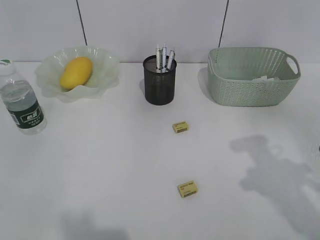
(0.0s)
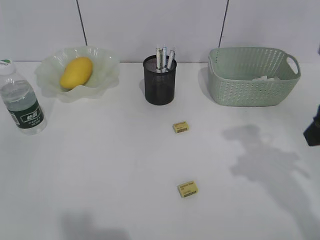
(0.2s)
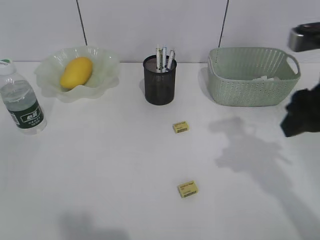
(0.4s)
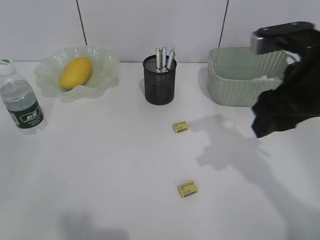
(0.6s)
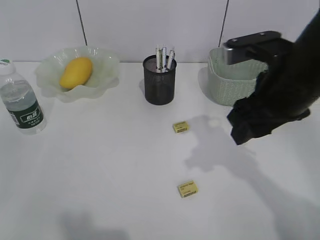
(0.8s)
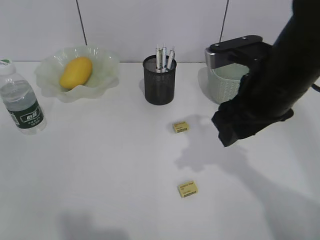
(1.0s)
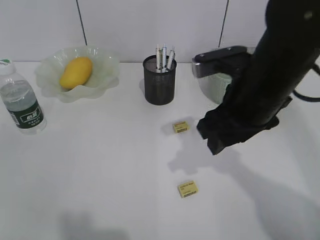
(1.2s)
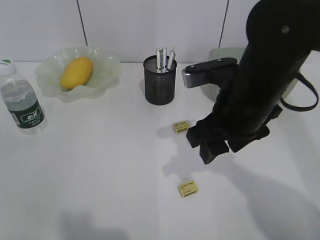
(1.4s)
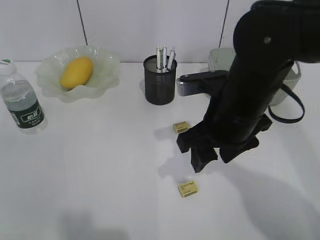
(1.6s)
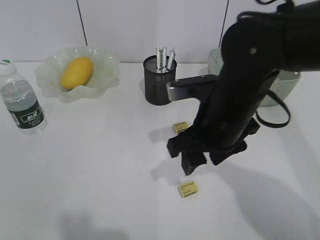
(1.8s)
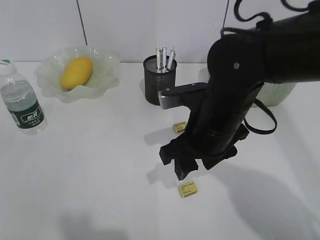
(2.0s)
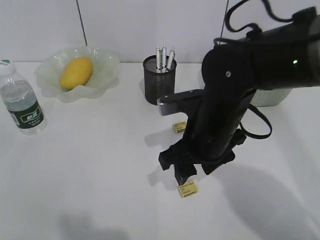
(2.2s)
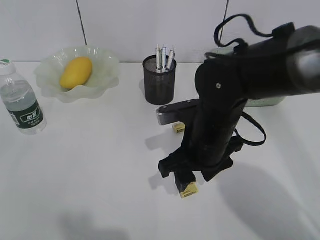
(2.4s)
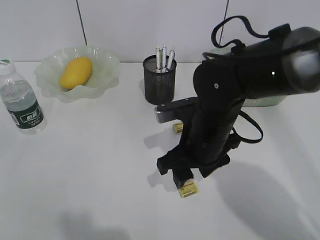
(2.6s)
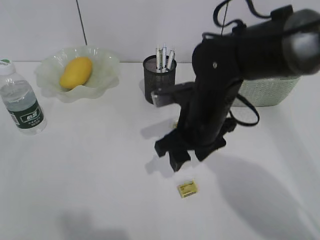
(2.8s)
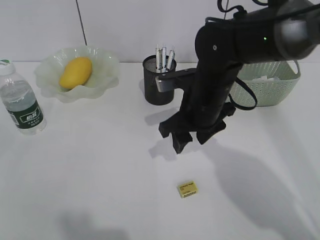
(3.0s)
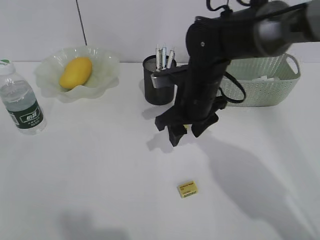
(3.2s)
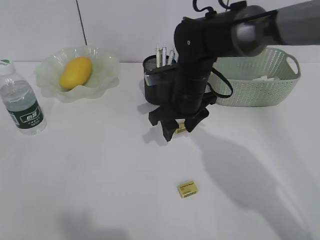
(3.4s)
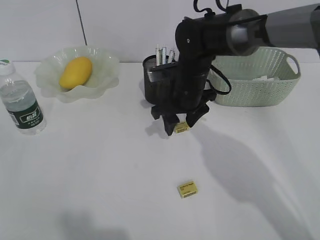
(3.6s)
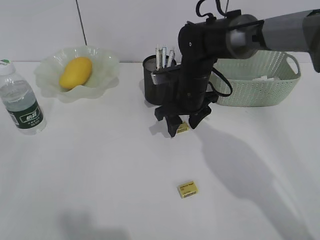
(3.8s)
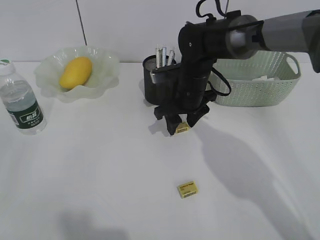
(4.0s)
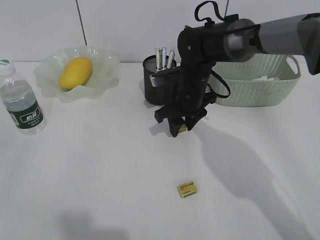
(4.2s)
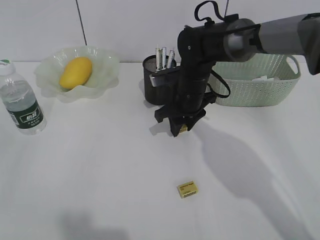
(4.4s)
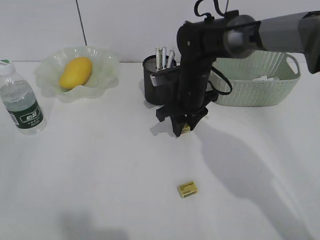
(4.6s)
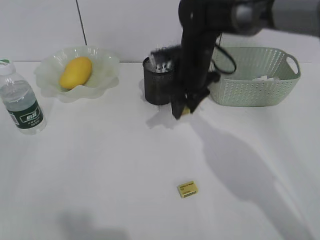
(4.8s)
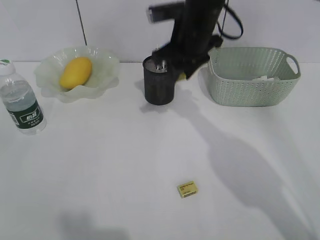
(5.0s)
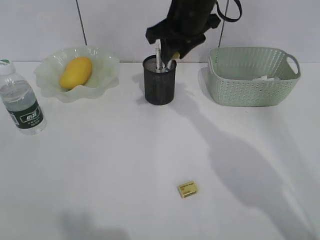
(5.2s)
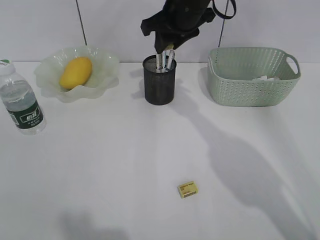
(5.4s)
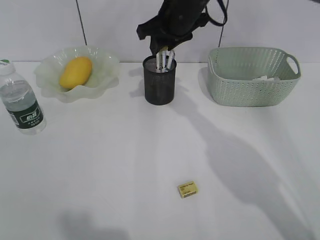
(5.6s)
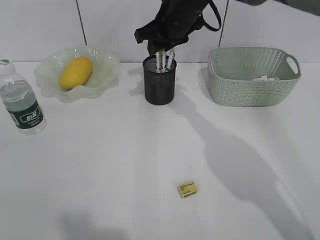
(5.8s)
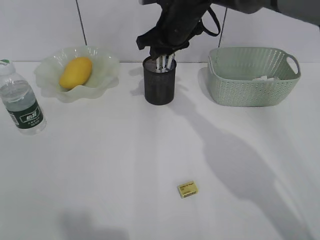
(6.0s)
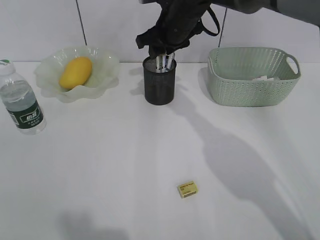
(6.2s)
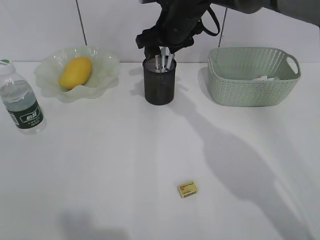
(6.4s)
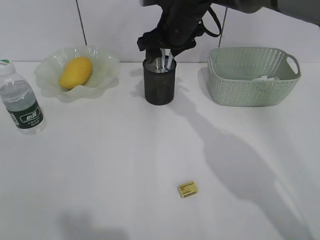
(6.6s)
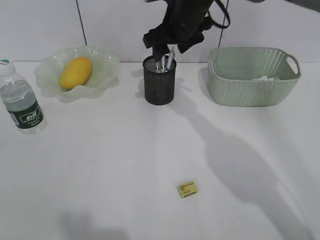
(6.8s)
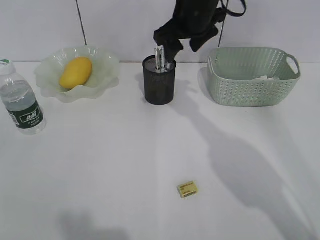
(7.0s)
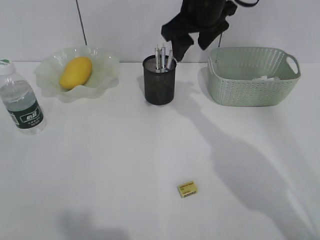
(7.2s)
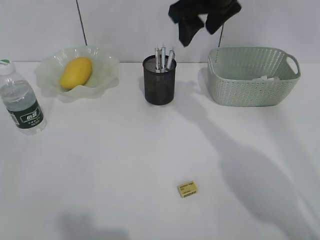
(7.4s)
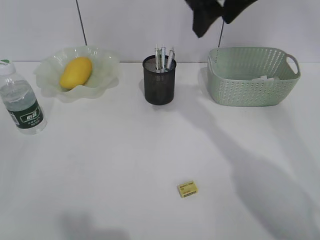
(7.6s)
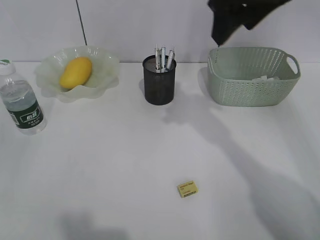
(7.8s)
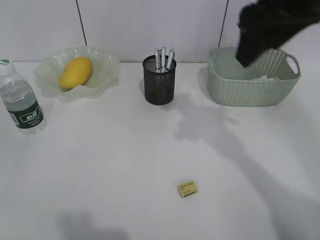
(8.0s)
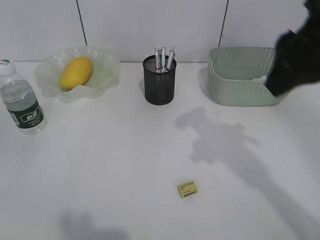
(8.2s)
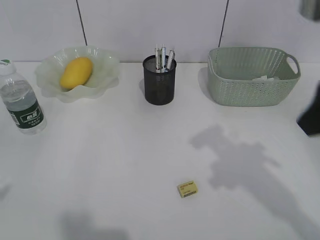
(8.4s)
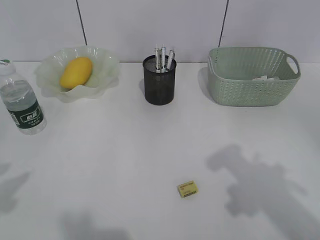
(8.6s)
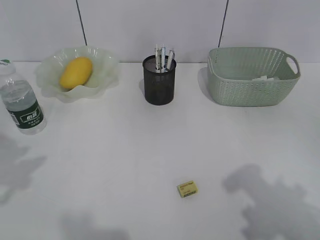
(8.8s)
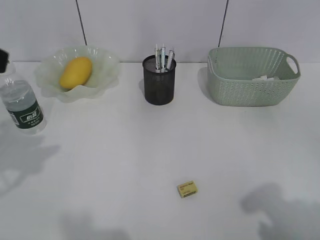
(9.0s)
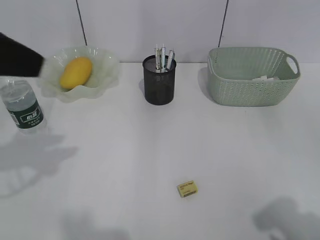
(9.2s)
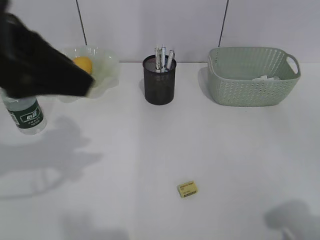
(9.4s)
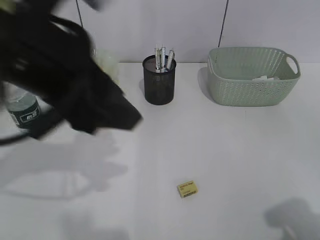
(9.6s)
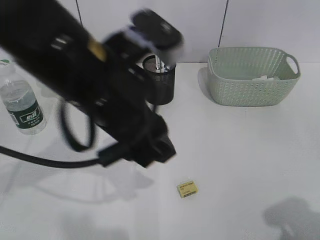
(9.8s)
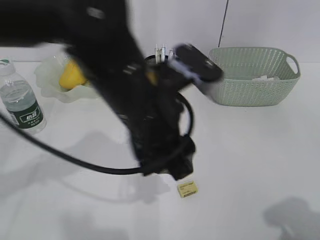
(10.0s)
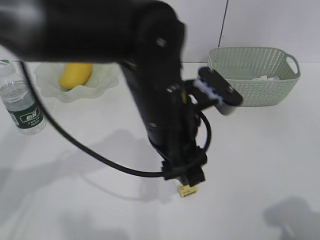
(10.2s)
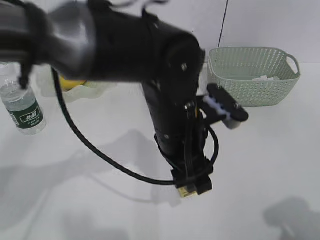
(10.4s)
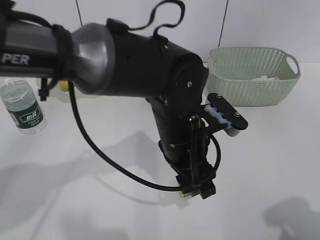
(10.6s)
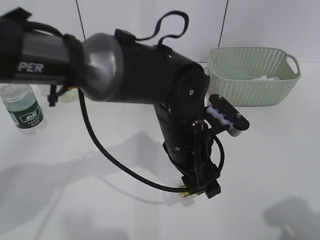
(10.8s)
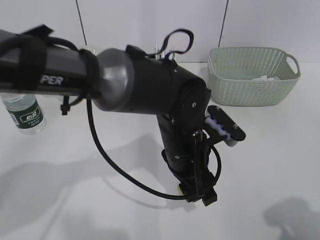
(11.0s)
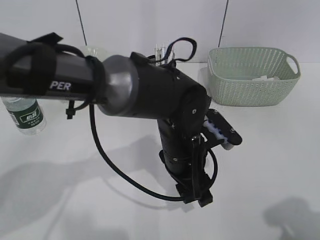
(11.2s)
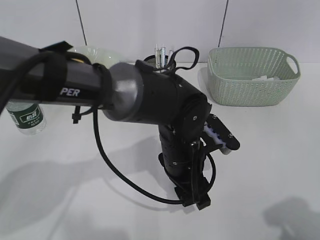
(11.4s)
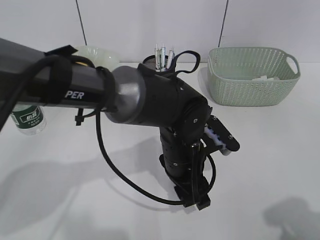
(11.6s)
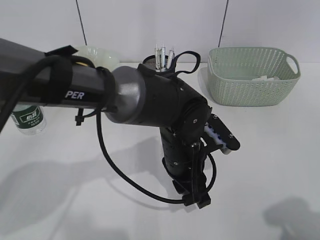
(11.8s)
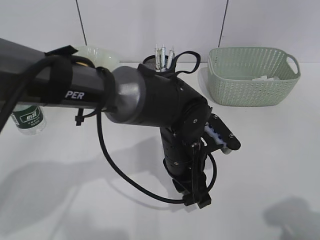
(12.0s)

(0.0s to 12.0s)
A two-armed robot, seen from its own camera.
Step, 0.0s - 4.4s: Grasp the eraser with right gripper.
Step, 4.6s - 6.4s: Place the eraser in pen holder with right gripper.
0.0s - 1.6s: The right gripper is displaced to the left, forward and downward by about 20 cm. Meanwhile the left gripper is displaced backward by roughly 5 cm.
1.6s - 3.0s: The right gripper travels forward by approximately 5 cm.
3.0s - 4.4s: The right gripper heads forward and downward, covering approximately 10 cm.
4.4s - 6.0s: The right gripper heads upward and forward, covering roughly 15 cm.
6.0s - 7.6s: The right gripper is displaced upward, backward and to the right by approximately 15 cm, and opens its fingers.
7.6s - 9.0s: The left gripper travels forward by some 15 cm, while the right gripper travels backward and to the right by roughly 35 cm.
9.0s - 10.4s: The left gripper shifts approximately 30 cm to the right and downward.
10.4s - 12.0s: The left gripper is displaced downward by roughly 10 cm, and closes its fingers.

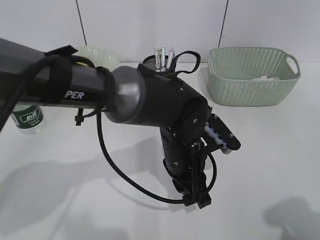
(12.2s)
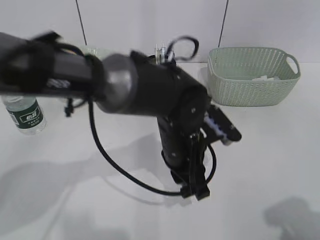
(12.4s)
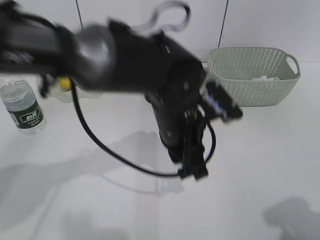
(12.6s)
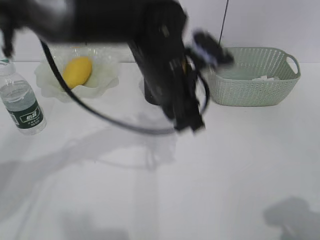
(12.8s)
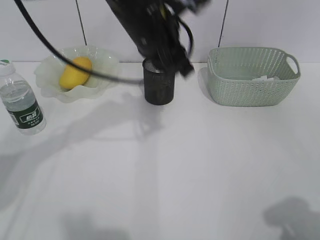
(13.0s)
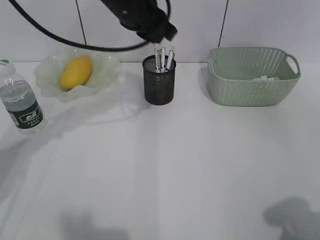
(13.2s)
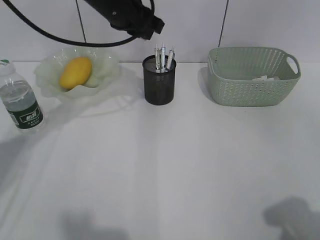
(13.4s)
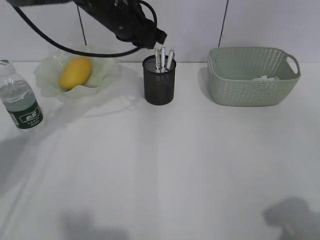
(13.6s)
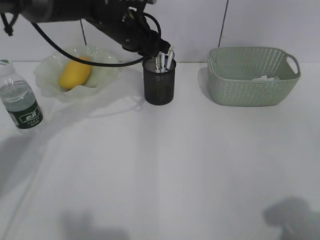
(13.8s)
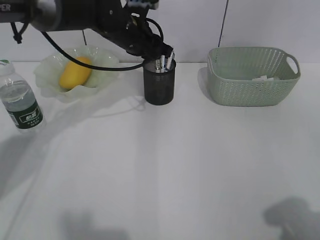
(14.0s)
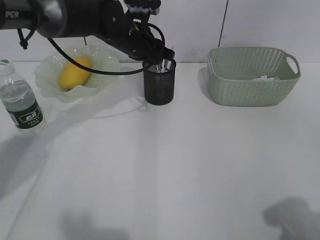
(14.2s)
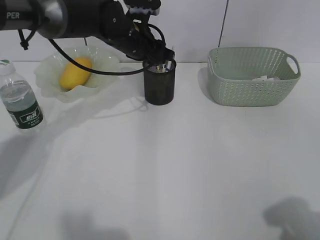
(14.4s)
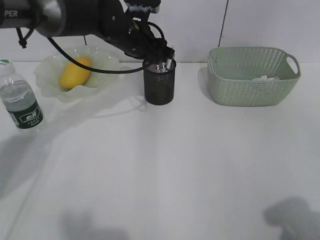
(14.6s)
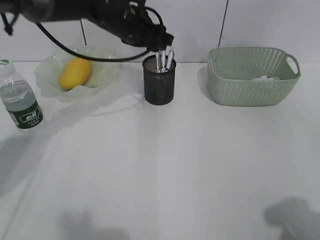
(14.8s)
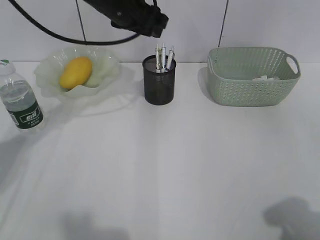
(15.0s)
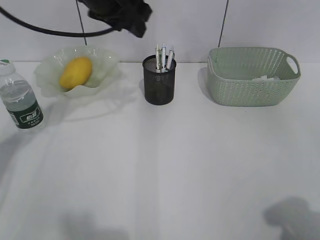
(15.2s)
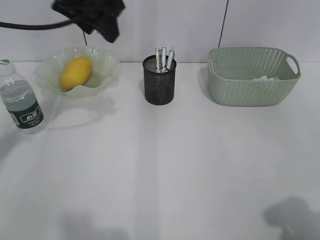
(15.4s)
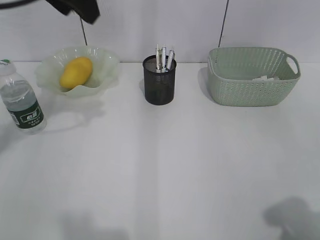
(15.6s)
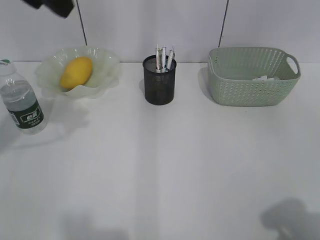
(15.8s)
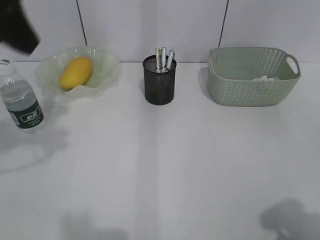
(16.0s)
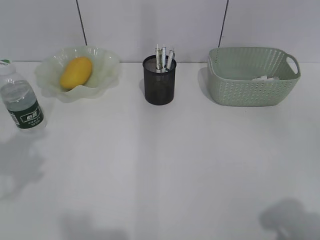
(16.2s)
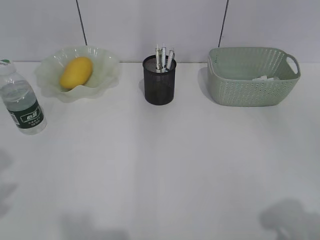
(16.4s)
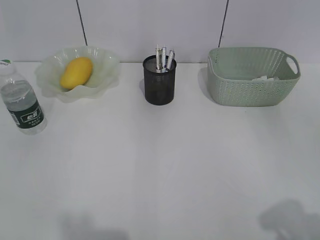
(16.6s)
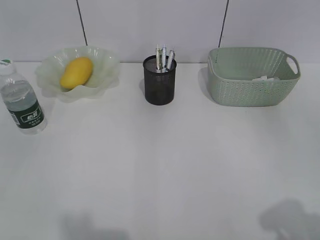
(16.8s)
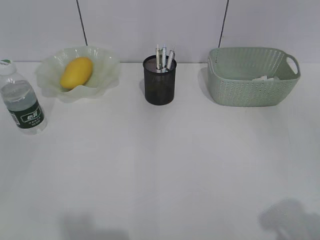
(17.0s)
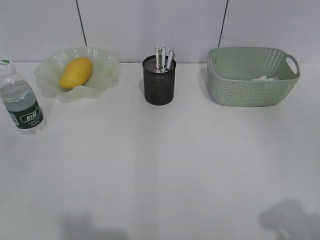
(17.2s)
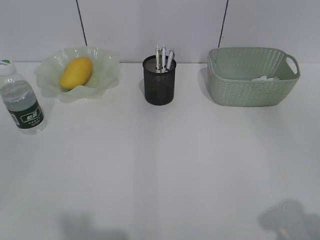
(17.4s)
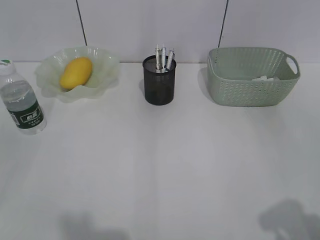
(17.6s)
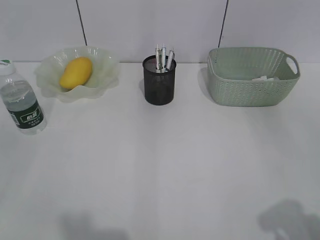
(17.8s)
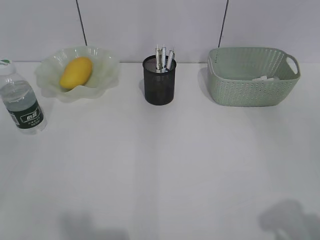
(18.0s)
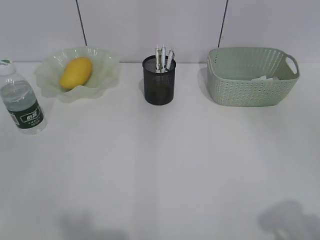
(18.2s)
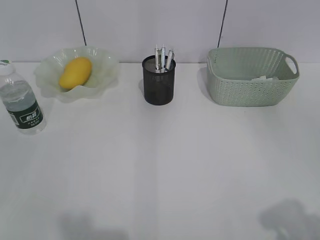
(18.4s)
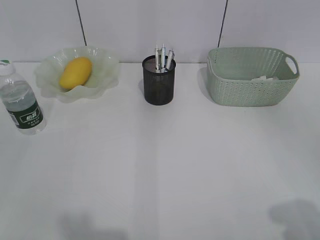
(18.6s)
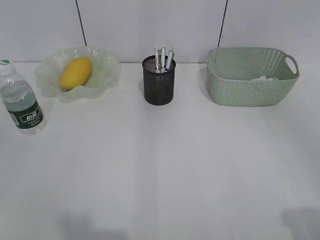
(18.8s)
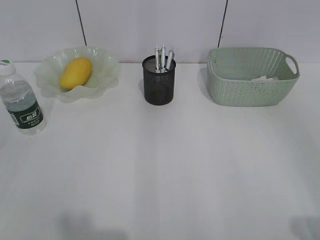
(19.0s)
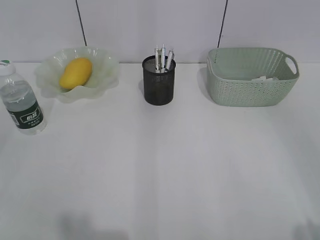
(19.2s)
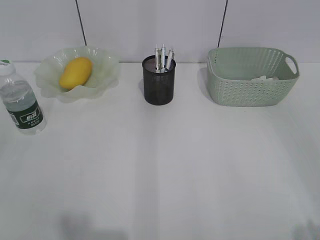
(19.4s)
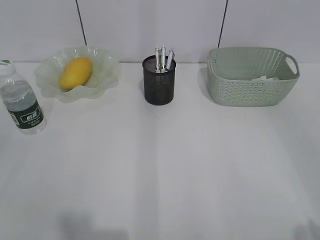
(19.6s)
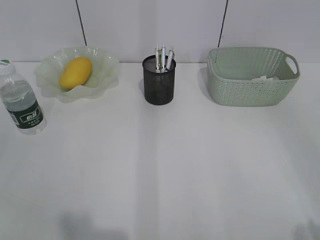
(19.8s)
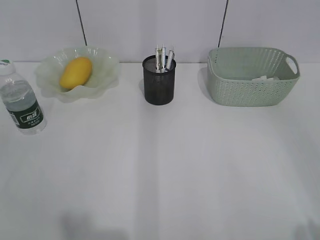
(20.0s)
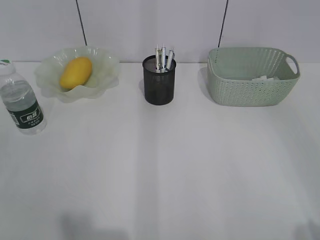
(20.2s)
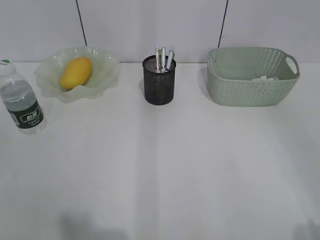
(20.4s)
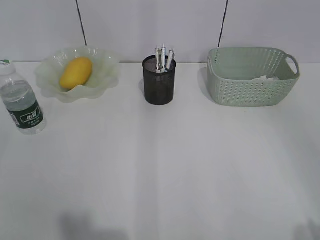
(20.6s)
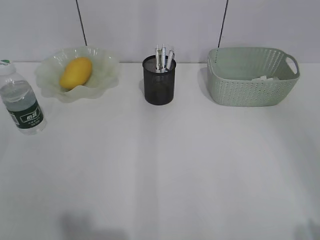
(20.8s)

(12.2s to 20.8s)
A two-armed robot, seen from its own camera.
Step, 12.2s - 14.4s: Place the eraser in pen holder with left gripper.
12.2s - 13.6s: The left gripper goes roughly 25 cm forward, upward and to the left.
13.6s - 15.0s: The left gripper goes downward and returns, some 5 cm each way, and opens its fingers.
15.0s - 16.6s: The left gripper moves backward and to the left, approximately 40 cm.
19.4s - 20.8s: Both grippers stay put.

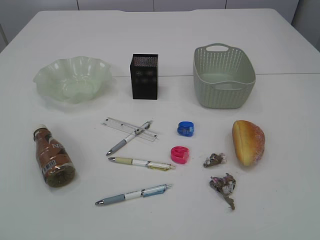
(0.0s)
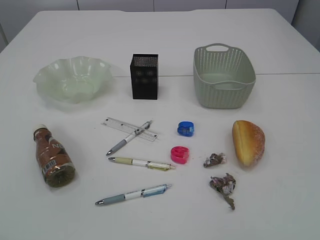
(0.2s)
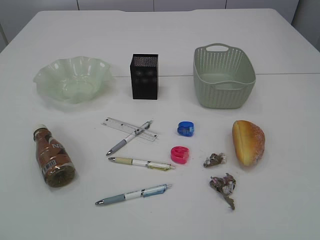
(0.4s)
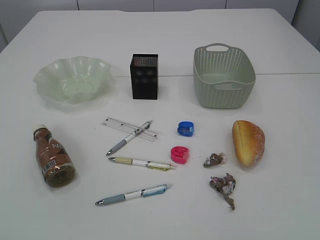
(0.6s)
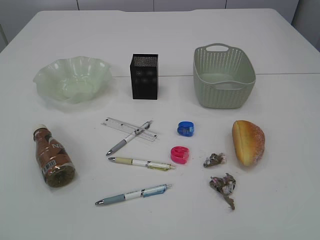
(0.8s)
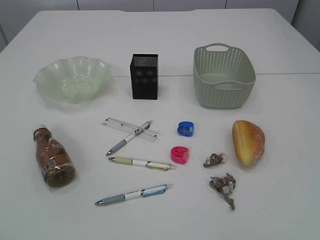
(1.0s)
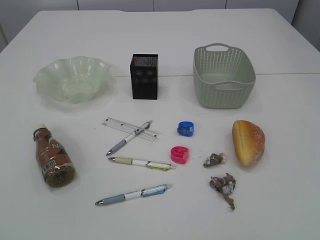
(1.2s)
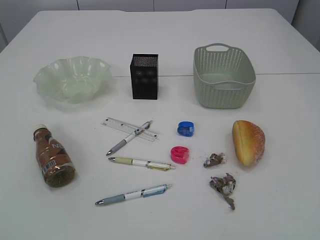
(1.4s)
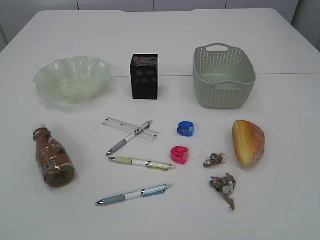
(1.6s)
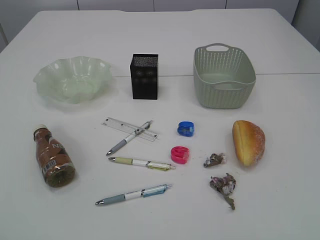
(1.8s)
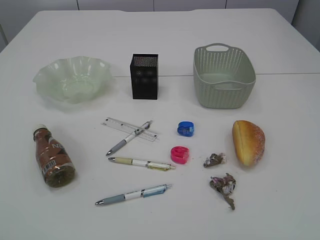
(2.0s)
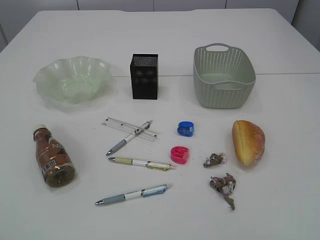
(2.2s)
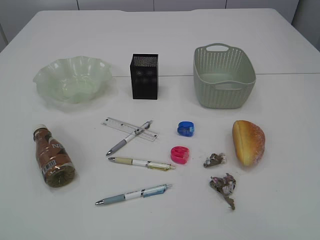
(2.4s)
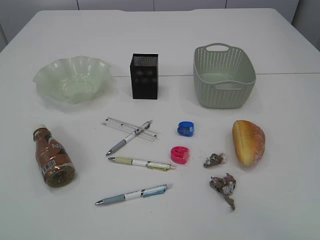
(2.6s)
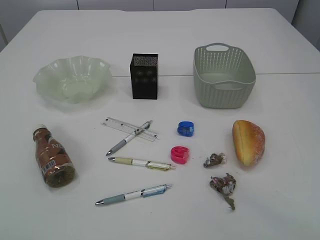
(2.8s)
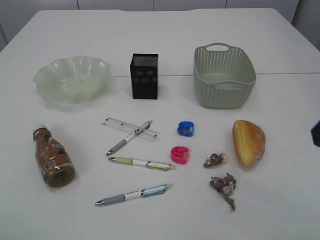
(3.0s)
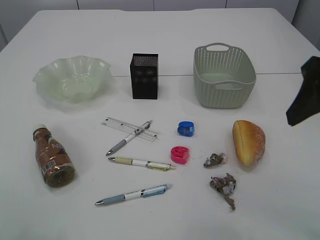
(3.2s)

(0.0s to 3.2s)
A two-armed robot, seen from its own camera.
1.6s - 3.2s: The right gripper is displaced forward by roughly 25 cm, and opens up.
